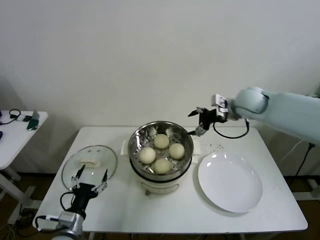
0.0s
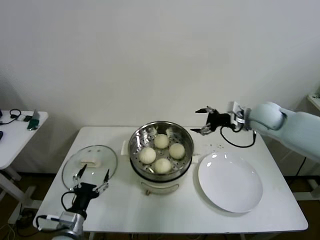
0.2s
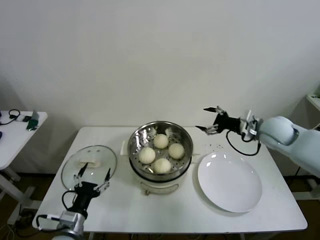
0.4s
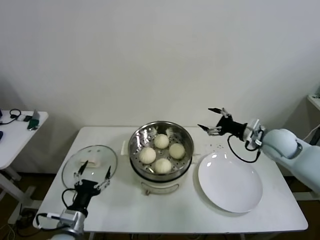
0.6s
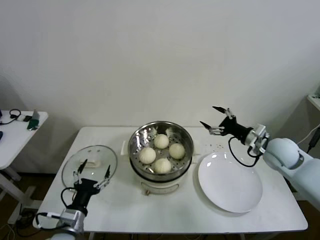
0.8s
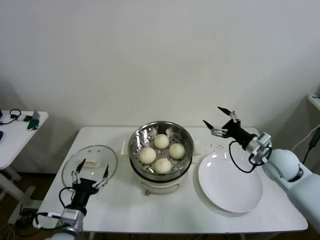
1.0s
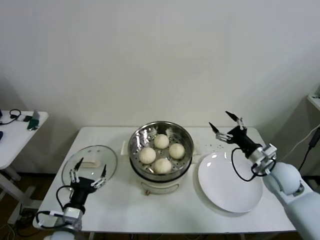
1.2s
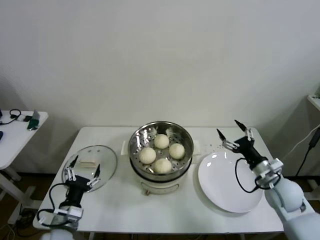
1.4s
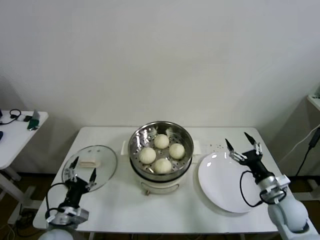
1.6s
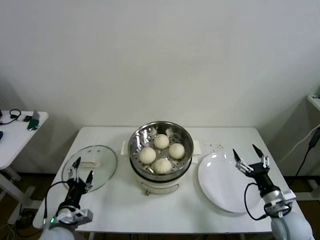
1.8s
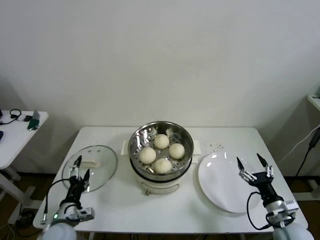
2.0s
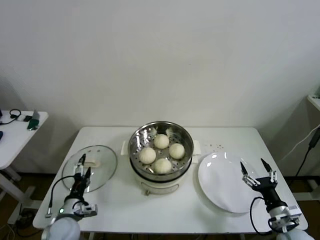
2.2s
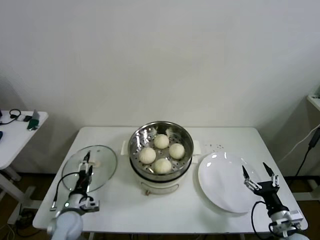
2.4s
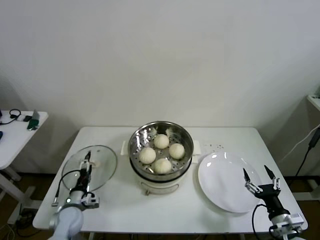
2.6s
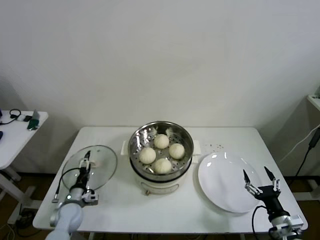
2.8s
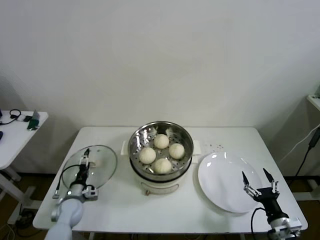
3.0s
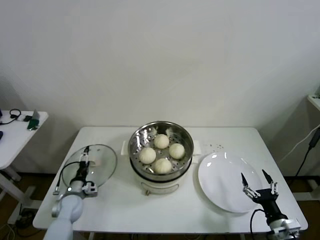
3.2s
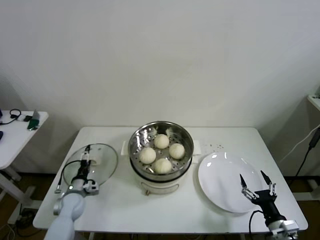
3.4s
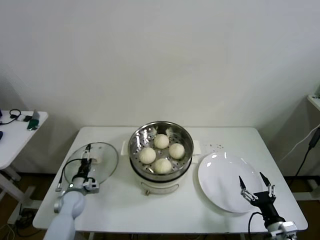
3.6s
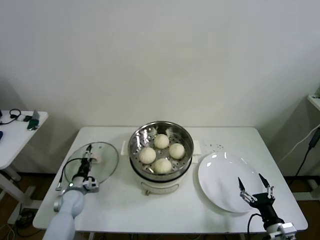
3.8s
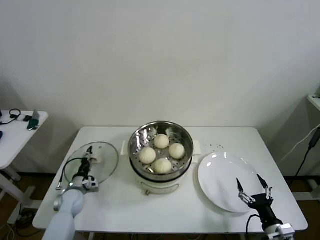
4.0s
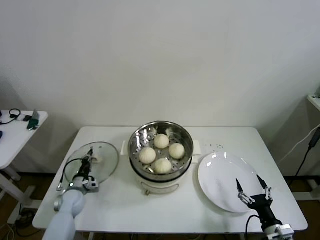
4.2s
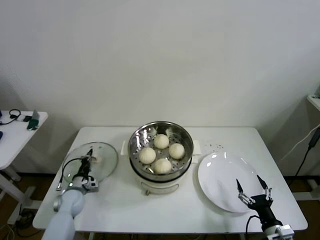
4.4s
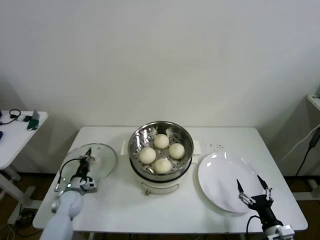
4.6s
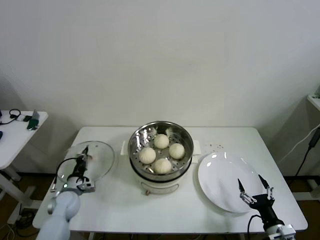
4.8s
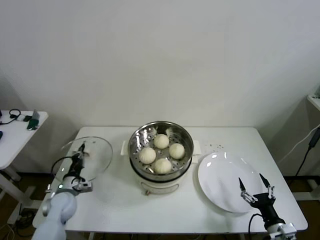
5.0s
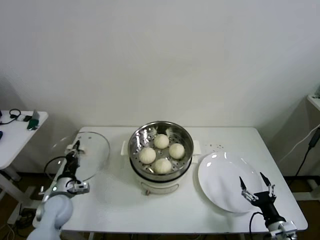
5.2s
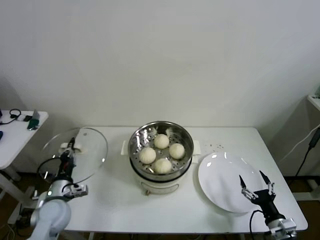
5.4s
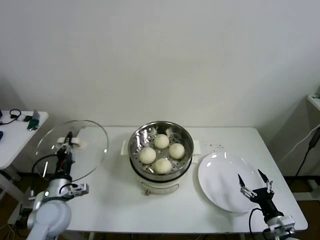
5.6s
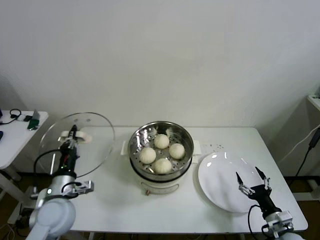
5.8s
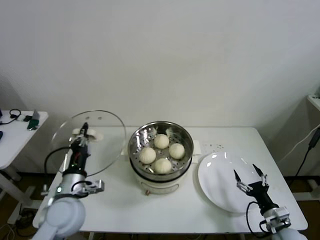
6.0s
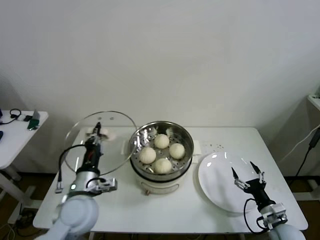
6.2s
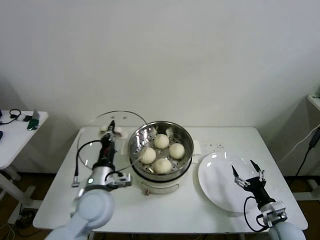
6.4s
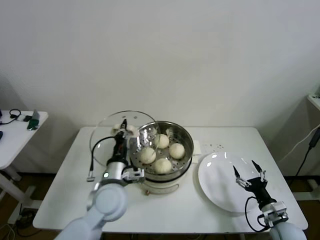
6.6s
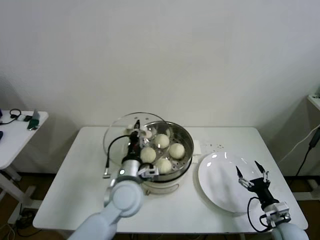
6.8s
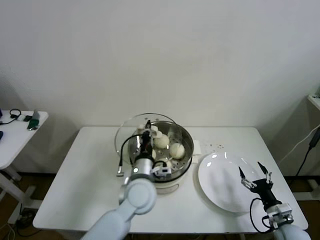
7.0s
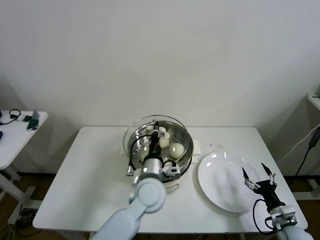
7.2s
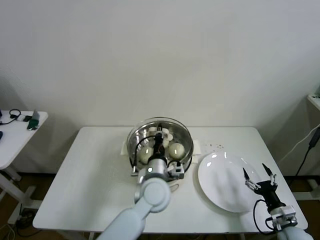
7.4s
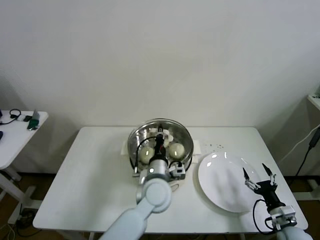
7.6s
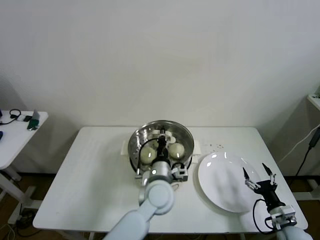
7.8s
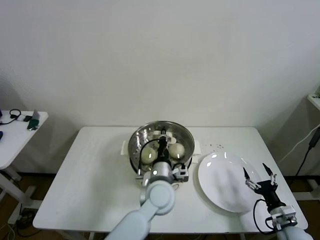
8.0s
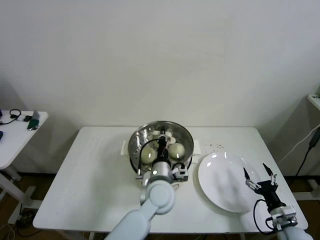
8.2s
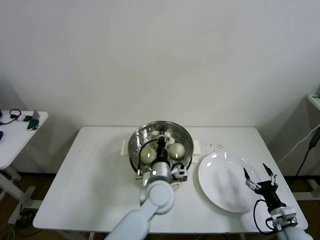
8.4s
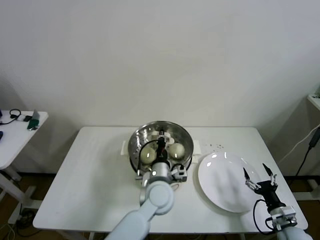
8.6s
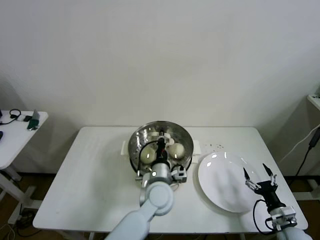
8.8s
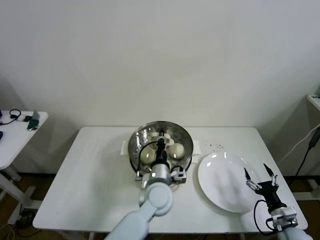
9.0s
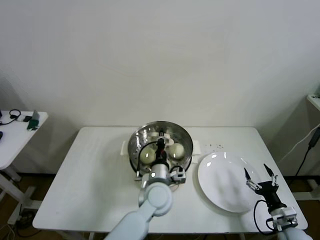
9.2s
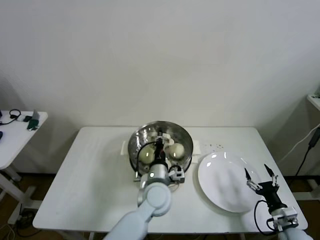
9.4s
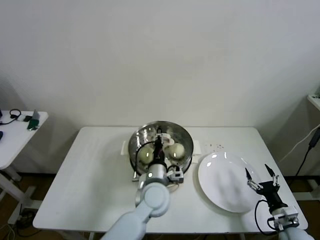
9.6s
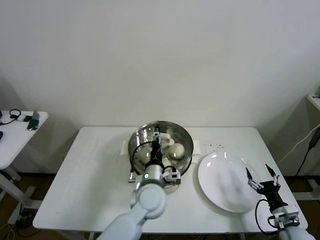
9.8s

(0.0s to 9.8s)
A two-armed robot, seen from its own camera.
Step, 0.0s - 4.2s: Grasp the pot lid with left gripper.
Step, 4.4s - 9.4s: Place the pot lid on the steamer with left gripper.
0.0s - 1.4s: The right gripper heads downward, backward and to the right, covering some 30 cm.
1.4s - 2.8s: The right gripper moves backward and downward, approximately 15 cm; the left gripper heads downward and forward, covering roughly 15 cm.
2.8s - 4.2s: The left gripper travels forward by approximately 5 cm, and closes up.
4.2s - 5.6s: The left gripper travels upward and backward by about 20 cm.
5.6s - 7.0s: The left gripper heads to the right, covering approximately 25 cm.
7.0s - 8.4s: The left gripper is displaced to the right by some 5 cm.
8.4s - 9.8s: The left gripper opens.

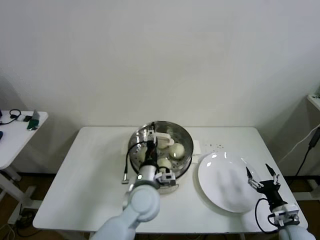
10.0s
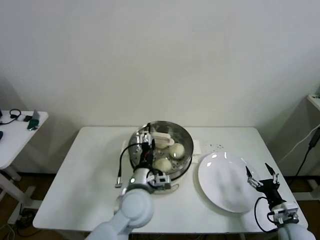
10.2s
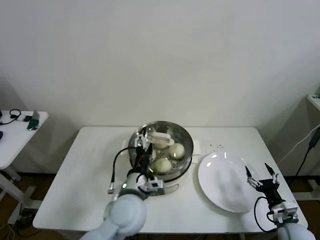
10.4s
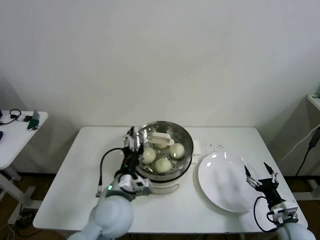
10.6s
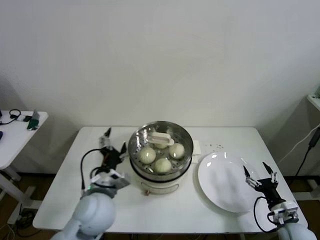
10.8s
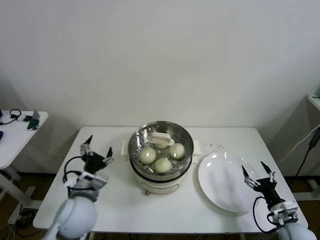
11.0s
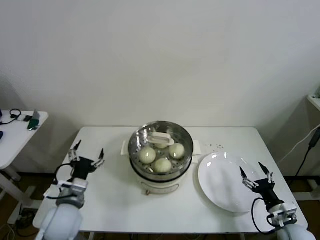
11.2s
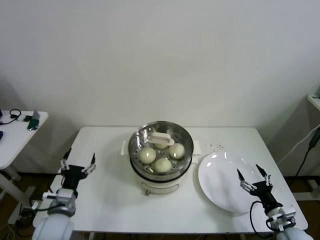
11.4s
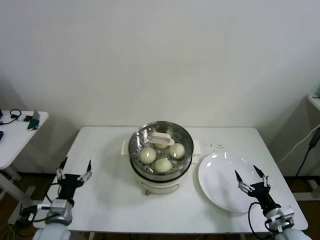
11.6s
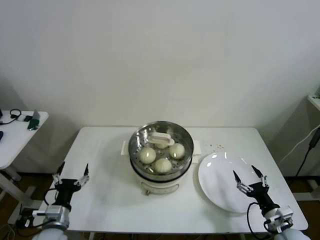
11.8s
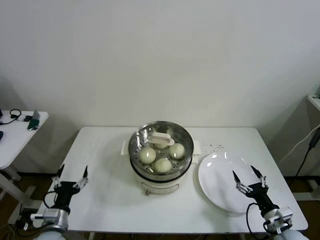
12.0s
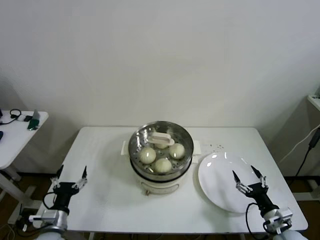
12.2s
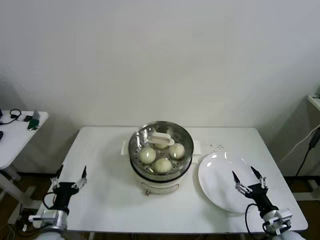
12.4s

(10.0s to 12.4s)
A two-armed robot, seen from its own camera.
10.0s - 11.2s: The left gripper travels to the left by roughly 20 cm.
11.2s - 12.4s: The left gripper moves downward, to the left and backward, approximately 15 cm.
